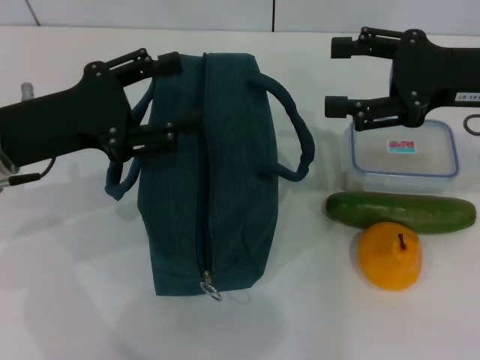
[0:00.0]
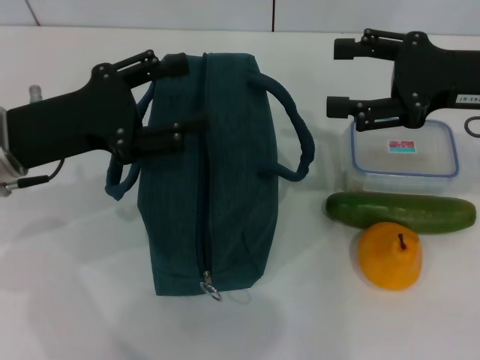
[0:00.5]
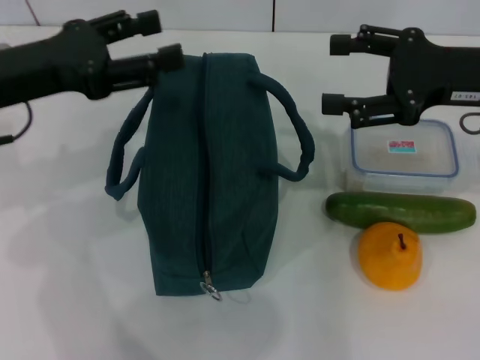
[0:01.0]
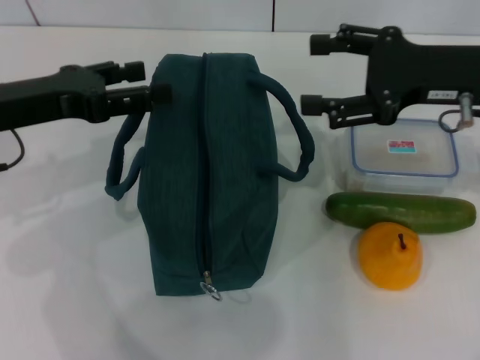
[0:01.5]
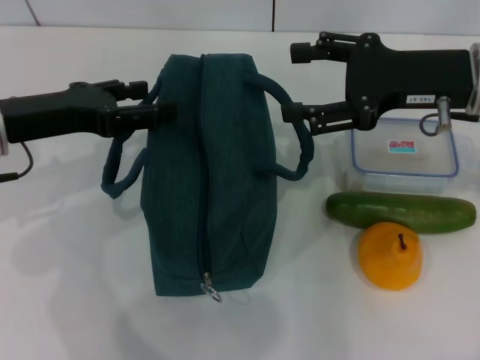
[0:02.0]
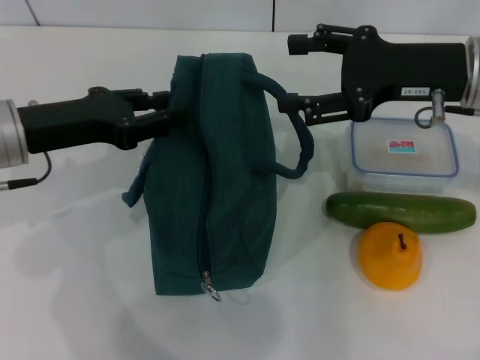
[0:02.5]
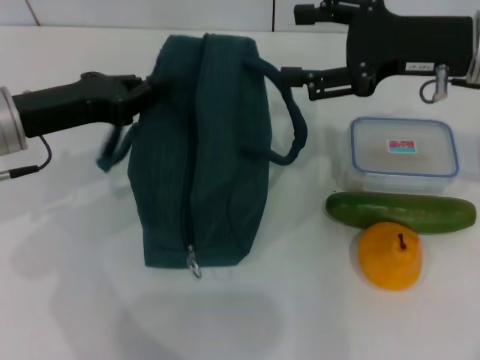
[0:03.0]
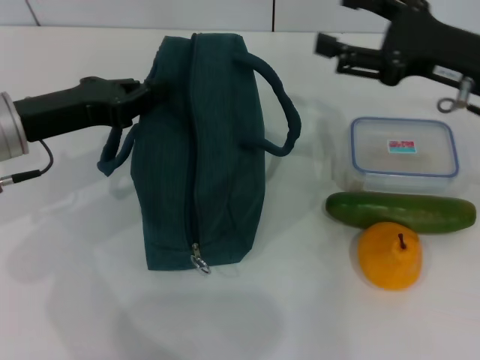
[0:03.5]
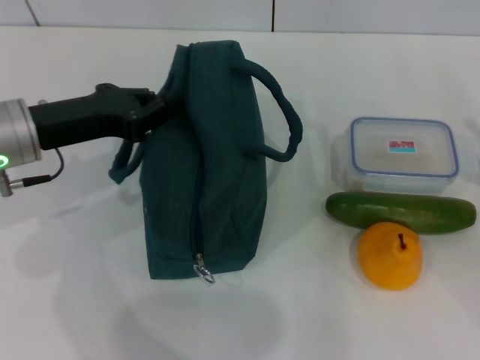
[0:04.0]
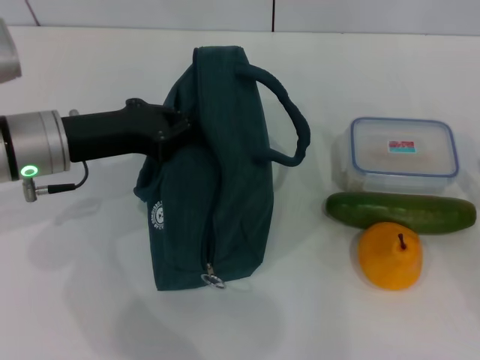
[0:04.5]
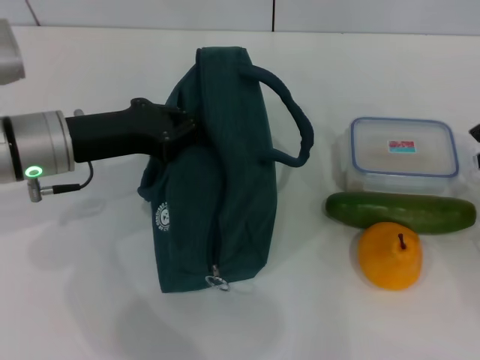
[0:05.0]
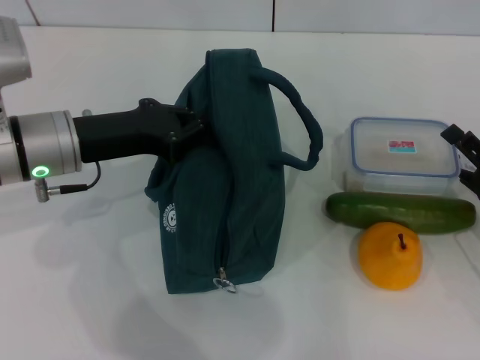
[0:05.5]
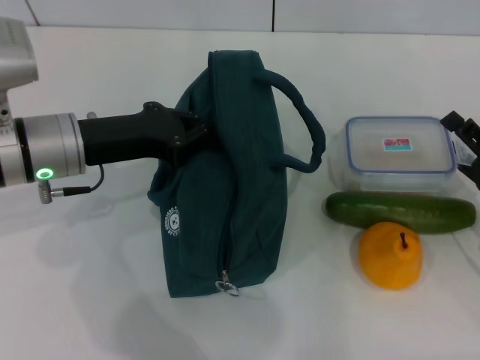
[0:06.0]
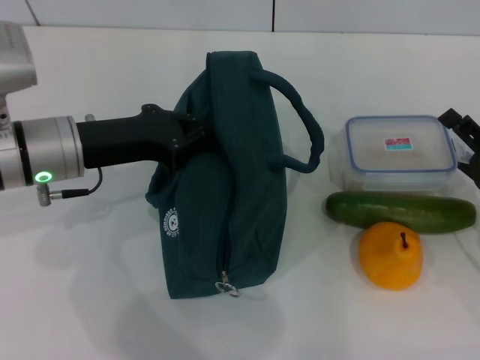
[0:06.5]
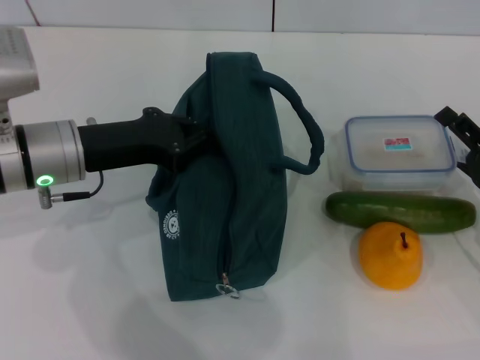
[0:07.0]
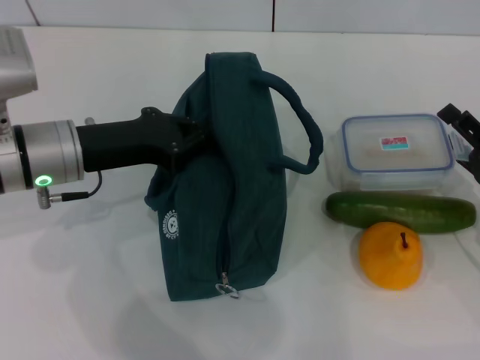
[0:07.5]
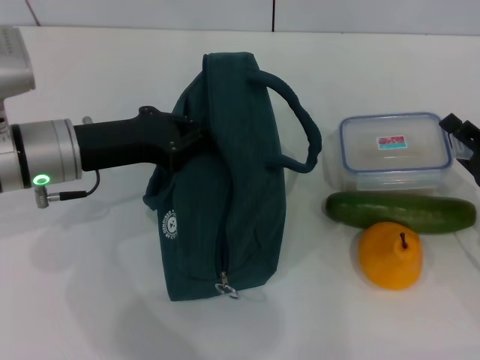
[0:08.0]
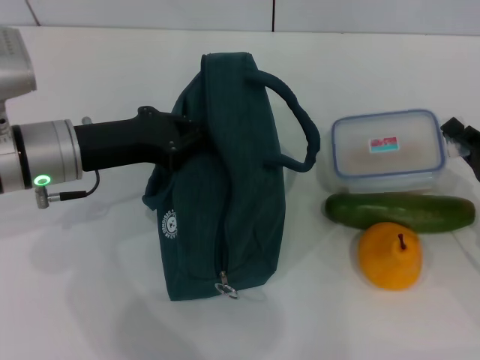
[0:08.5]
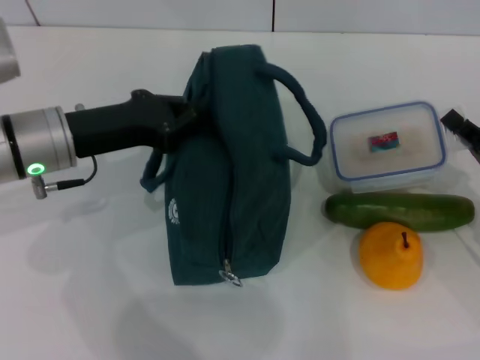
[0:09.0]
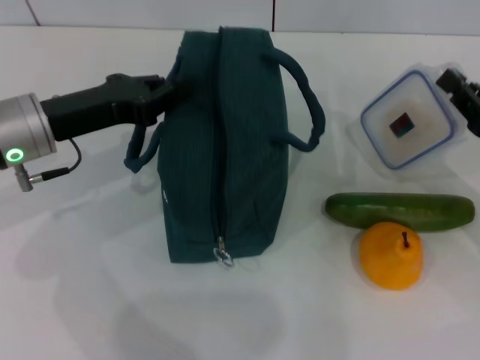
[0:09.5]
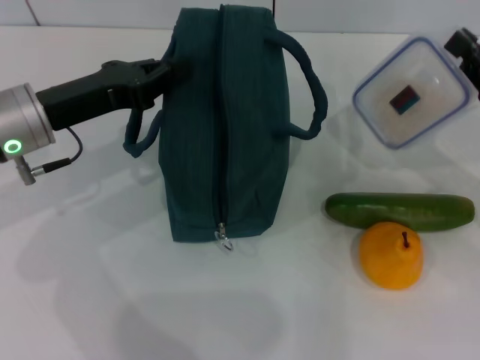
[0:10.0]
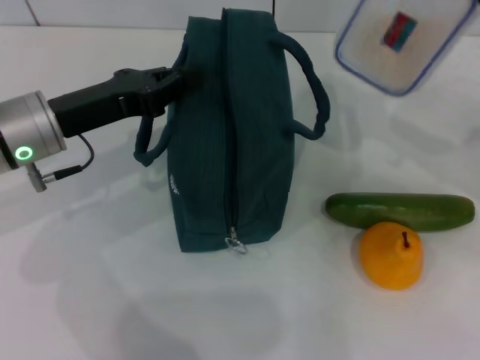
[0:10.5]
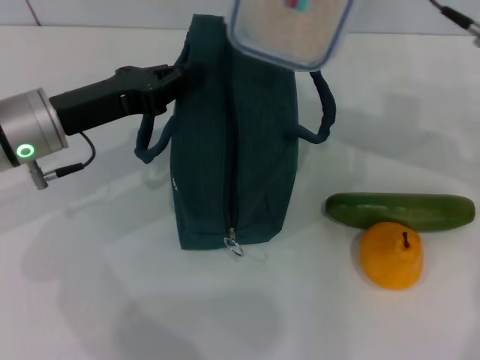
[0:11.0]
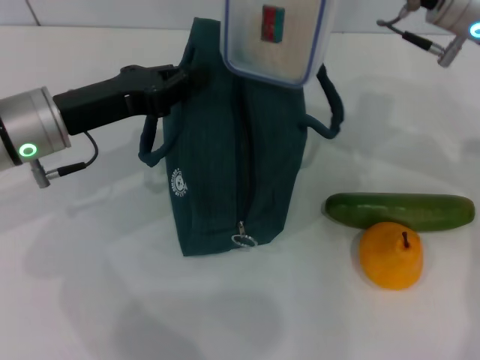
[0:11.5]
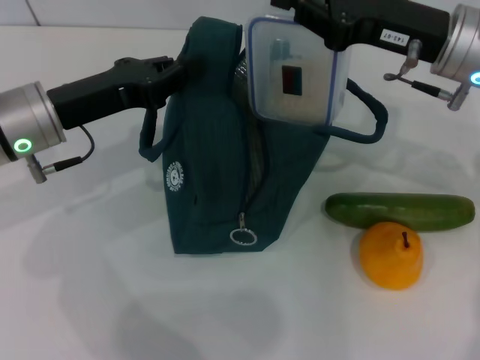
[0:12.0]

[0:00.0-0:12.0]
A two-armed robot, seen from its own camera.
Step, 0.0 to 4.0 s: Hold the lunch bag with your left hand.
Step, 4.5 to 8.5 s: Pick up the lunch box with your right hand.
2.0 to 4.0 s: The right gripper is displaced to the right, downward and backward by some 20 cm. The left gripper closes its fingers.
4.0 to 6.0 s: The right gripper moves roughly 5 cm.
6.0 to 8.0 s: Both grippers stay about where they are.
8.0 to 10.0 s: The right gripper moves upward, approximately 10 cm, and closes up.
10.0 to 12.0 s: The right gripper heads to the left, upward and forward, covering approximately 15 cm.

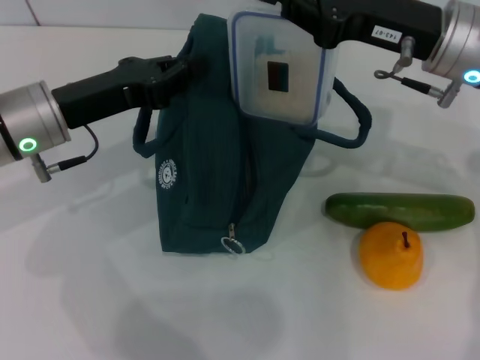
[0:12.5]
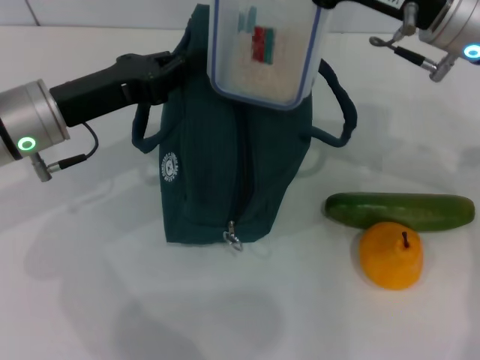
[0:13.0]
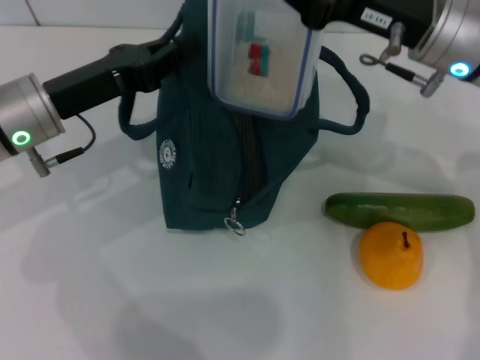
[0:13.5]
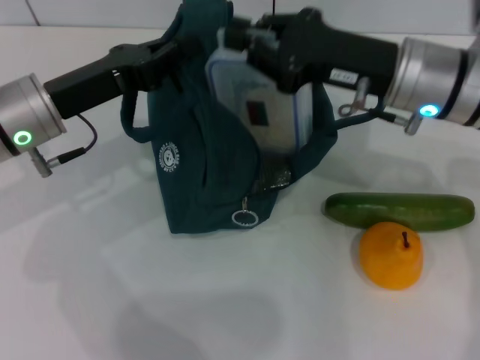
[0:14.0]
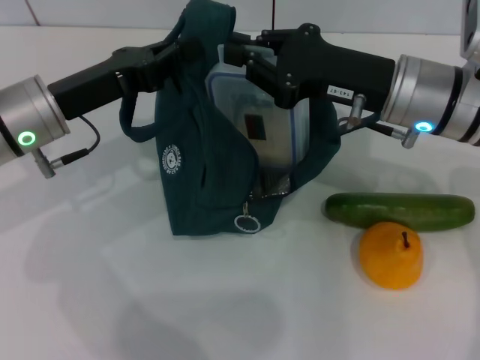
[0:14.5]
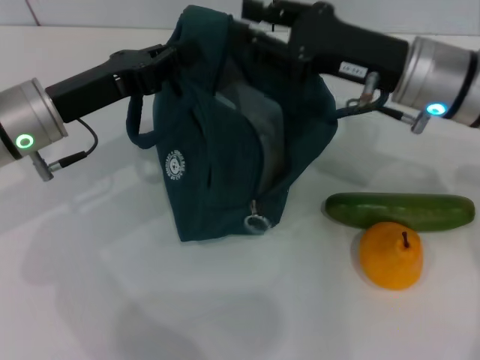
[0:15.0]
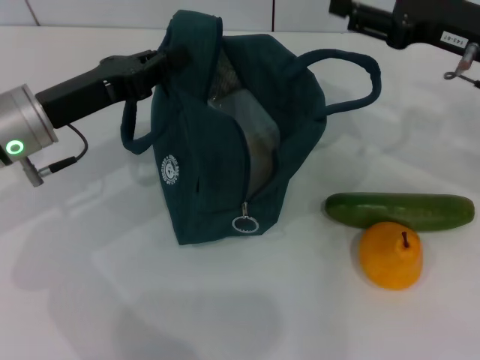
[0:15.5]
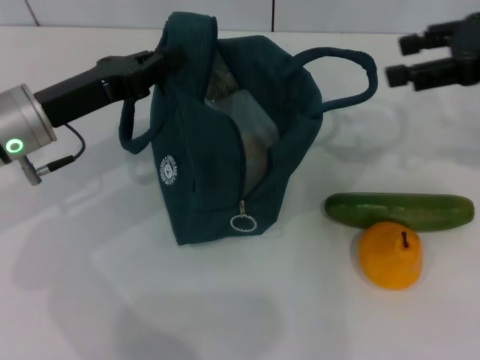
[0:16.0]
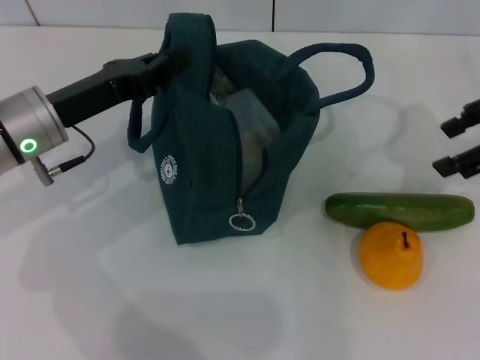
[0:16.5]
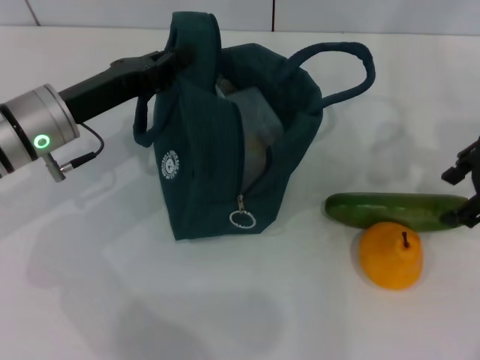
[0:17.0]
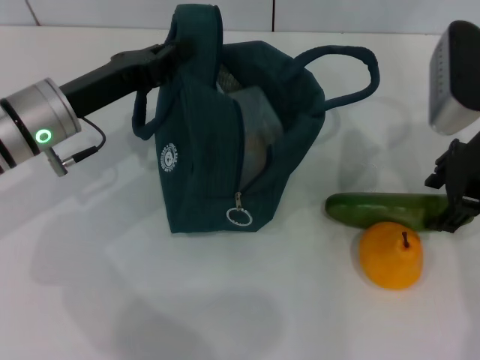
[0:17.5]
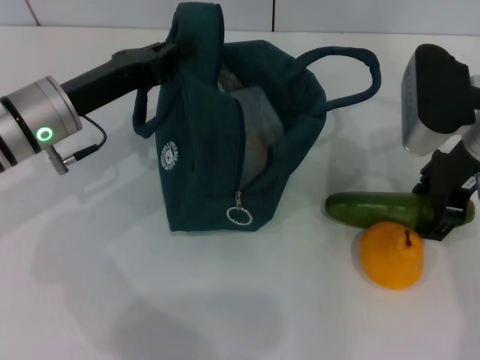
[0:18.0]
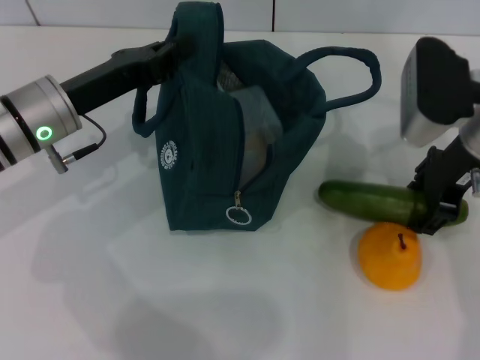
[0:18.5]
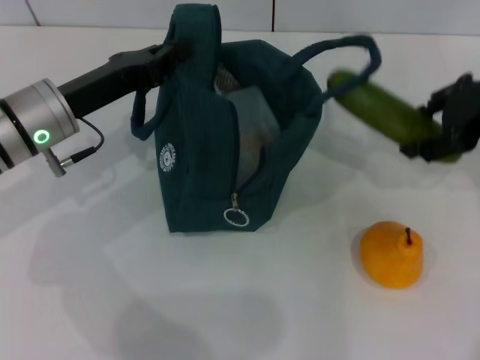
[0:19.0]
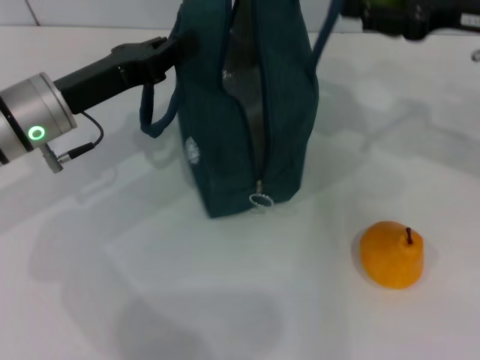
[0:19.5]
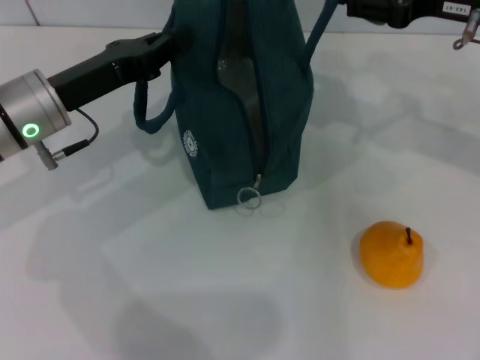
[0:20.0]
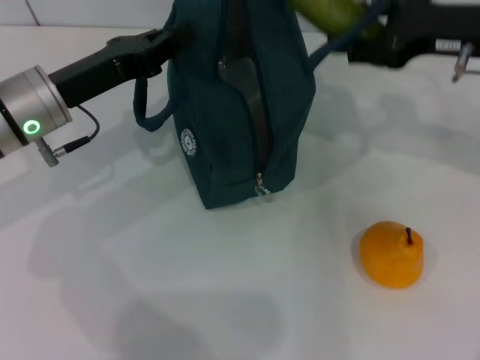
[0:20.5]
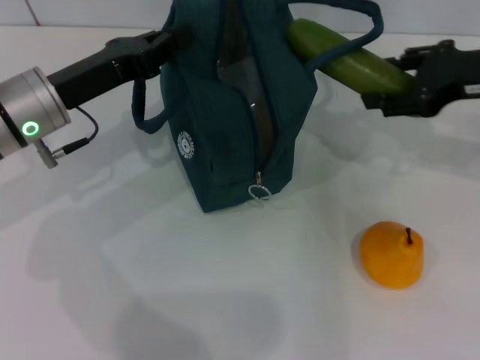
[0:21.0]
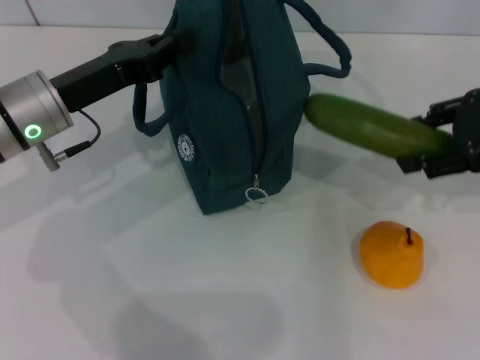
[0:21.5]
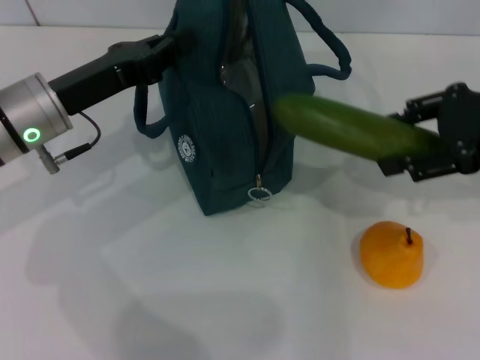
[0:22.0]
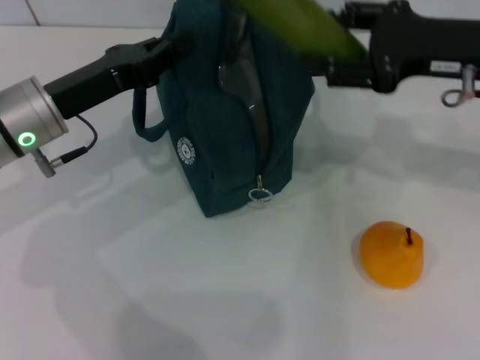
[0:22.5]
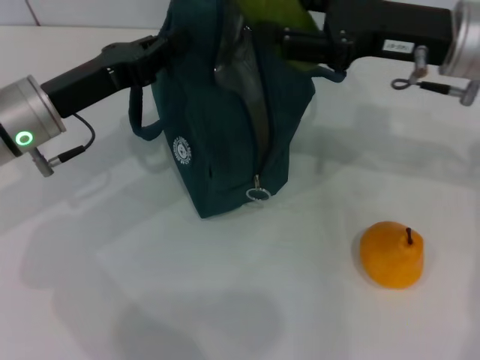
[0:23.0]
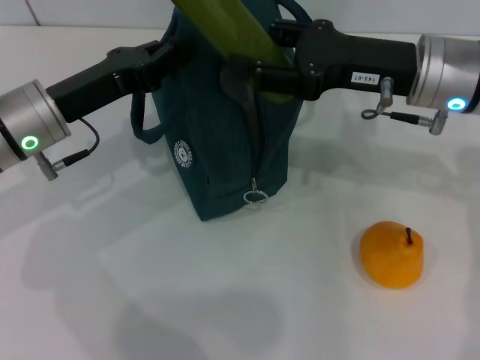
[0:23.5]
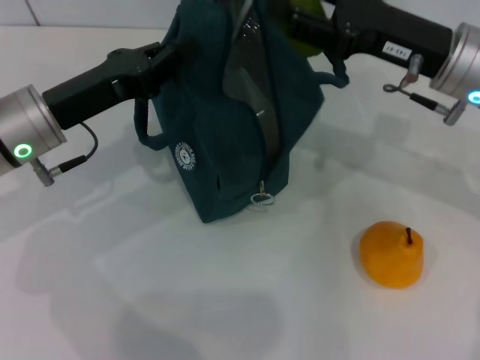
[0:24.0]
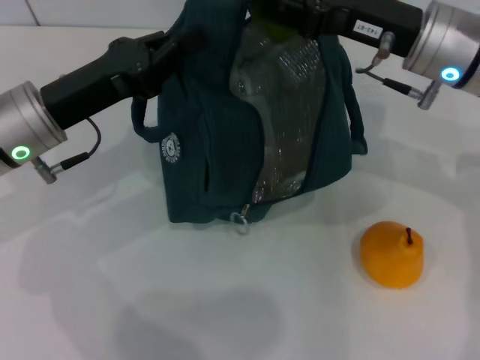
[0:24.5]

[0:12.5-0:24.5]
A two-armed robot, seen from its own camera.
Step, 12.5 to 15.5 s: Place the lunch box into the lunch bag with your right hand.
Step, 16.0 to 18.0 s: Pick up the cucumber with your right hand.
14.5 to 16.5 s: The right gripper shifts approximately 15 cm to the right and upward, and opens its fingers.
16.5 to 18.5 s: The right gripper shifts approximately 10 cm to the left and downward.
18.5 to 20.5 s: The right gripper changes place by roughly 5 cm.
22.5 to 24.5 s: The right gripper shifts about 5 cm to the left.

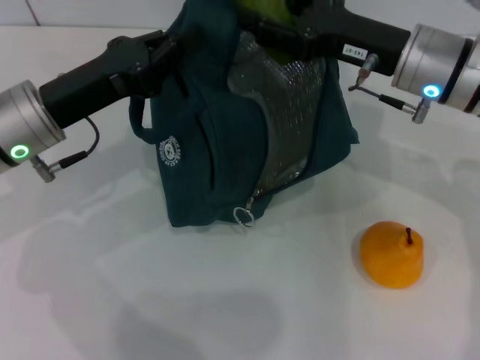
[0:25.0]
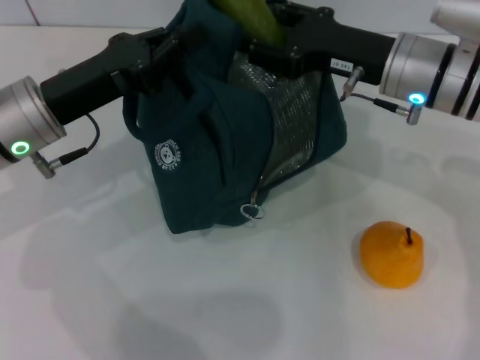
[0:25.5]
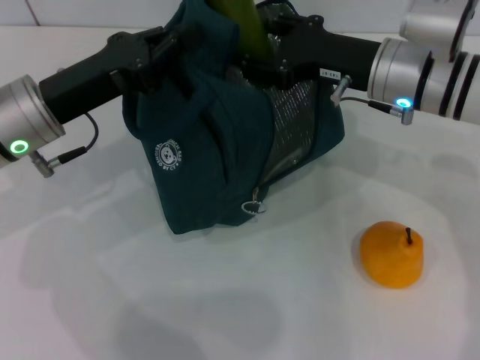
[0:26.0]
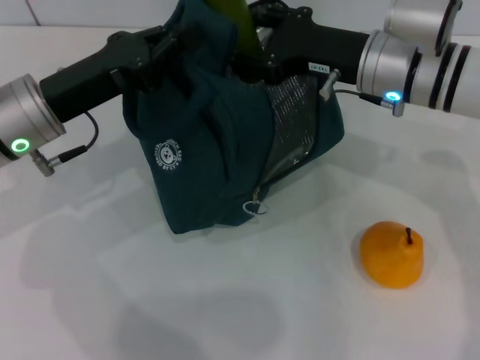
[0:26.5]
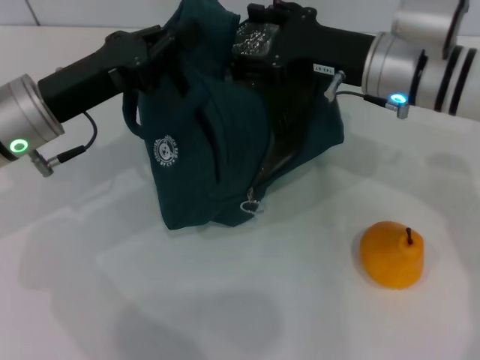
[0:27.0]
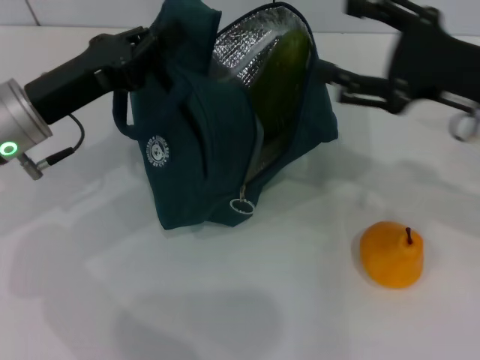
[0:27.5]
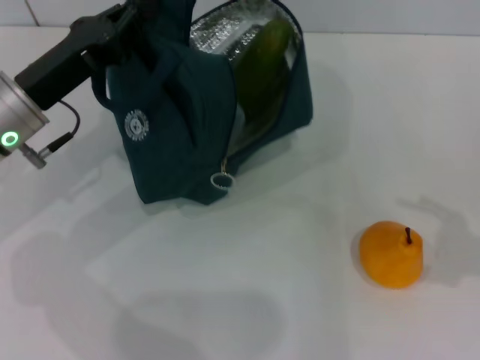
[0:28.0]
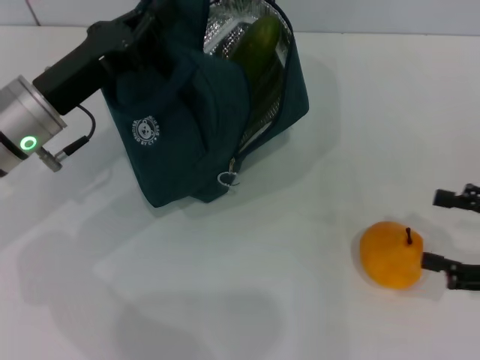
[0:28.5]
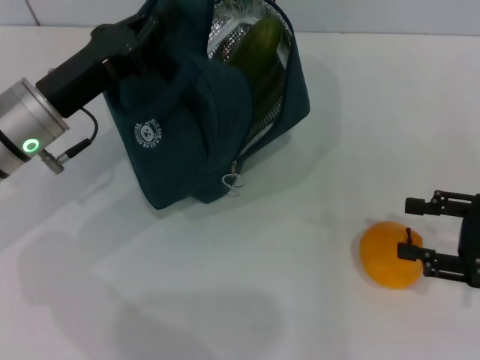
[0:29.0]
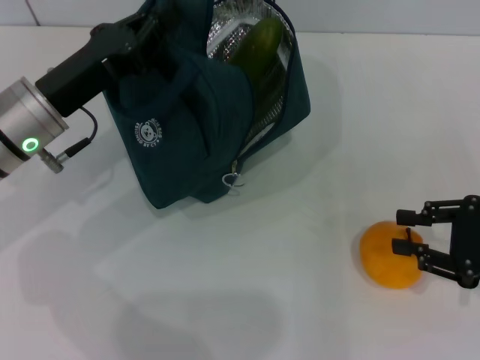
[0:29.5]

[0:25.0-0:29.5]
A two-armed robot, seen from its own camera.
Step, 25.0 to 27.0 s: Put the cucumber into the lunch bag with your right hand.
25.0 to 27.0 s: The grippers move only a little.
27.0 to 29.5 s: The right gripper moves to the right and backward, approximately 20 cm, and closes.
